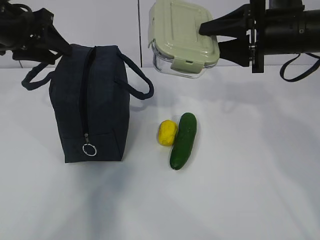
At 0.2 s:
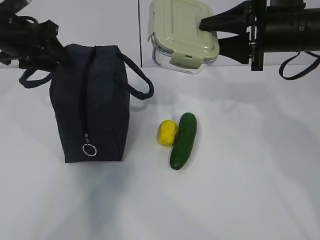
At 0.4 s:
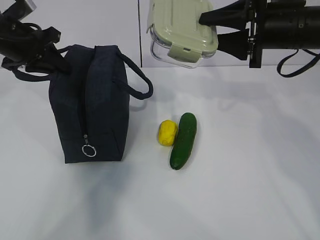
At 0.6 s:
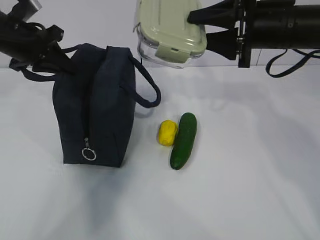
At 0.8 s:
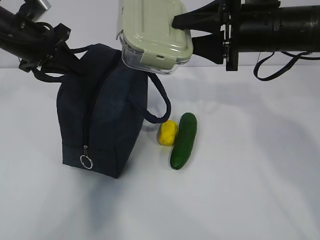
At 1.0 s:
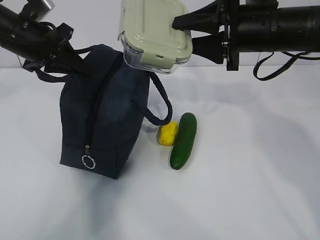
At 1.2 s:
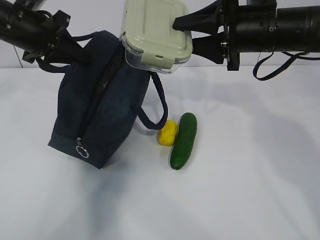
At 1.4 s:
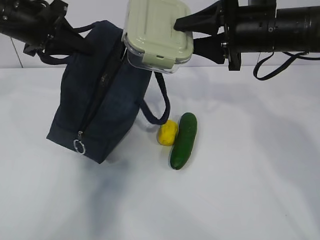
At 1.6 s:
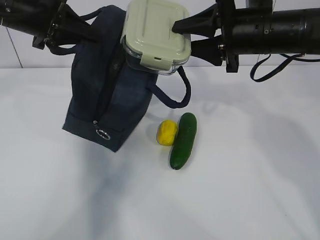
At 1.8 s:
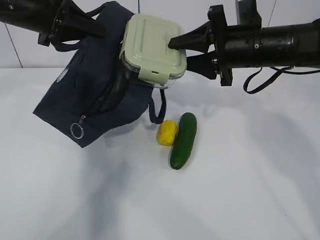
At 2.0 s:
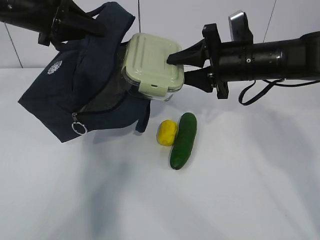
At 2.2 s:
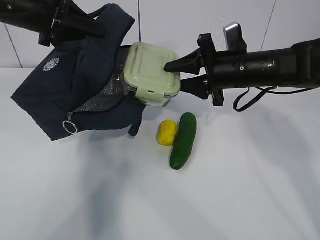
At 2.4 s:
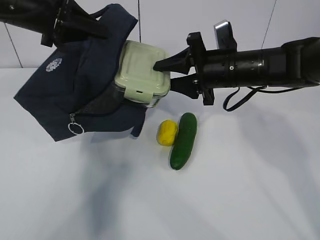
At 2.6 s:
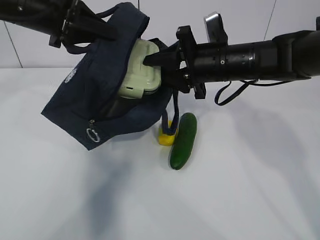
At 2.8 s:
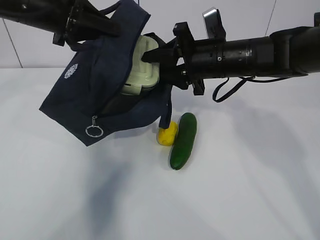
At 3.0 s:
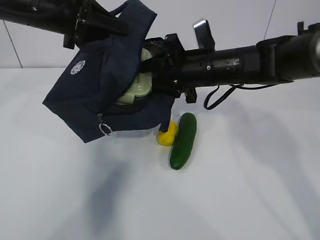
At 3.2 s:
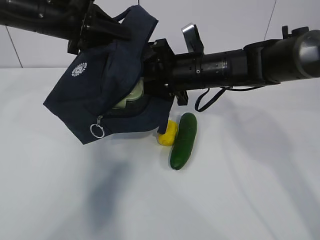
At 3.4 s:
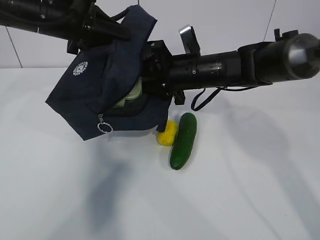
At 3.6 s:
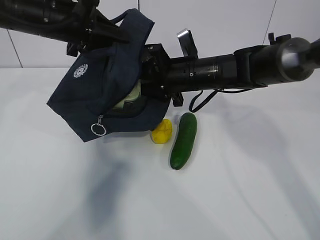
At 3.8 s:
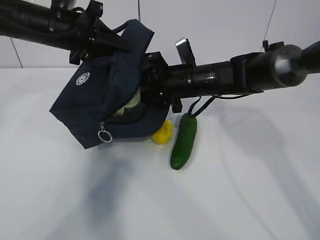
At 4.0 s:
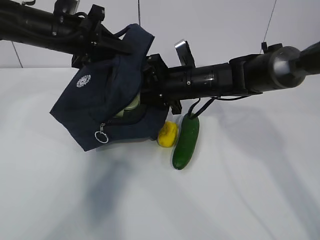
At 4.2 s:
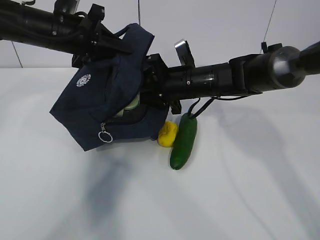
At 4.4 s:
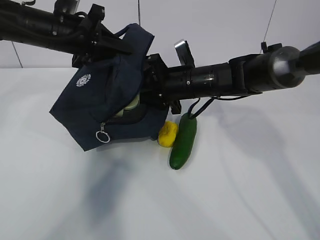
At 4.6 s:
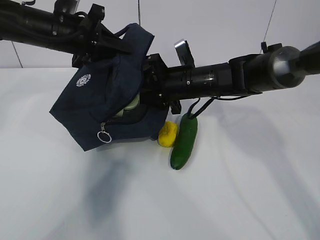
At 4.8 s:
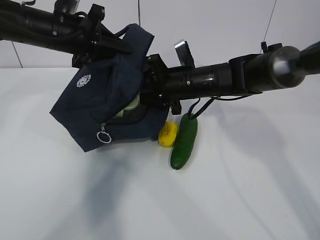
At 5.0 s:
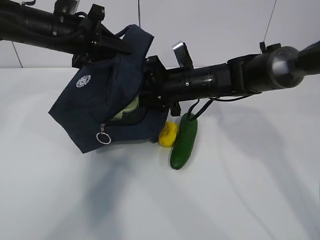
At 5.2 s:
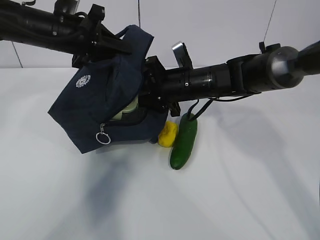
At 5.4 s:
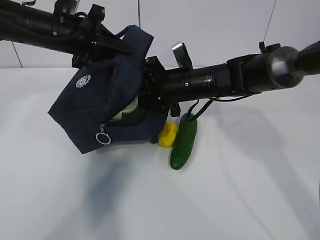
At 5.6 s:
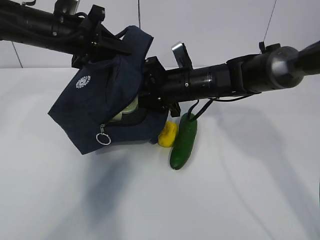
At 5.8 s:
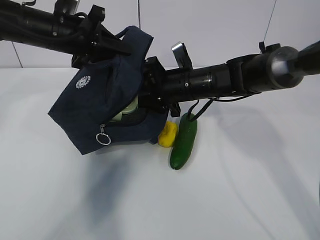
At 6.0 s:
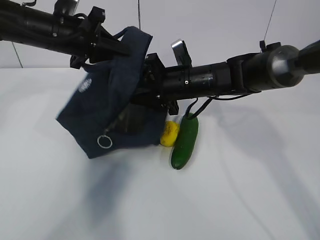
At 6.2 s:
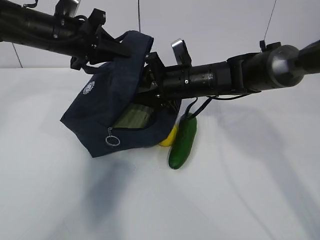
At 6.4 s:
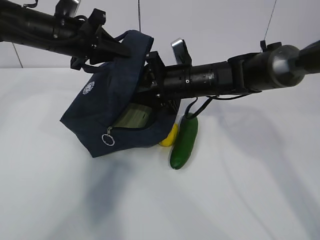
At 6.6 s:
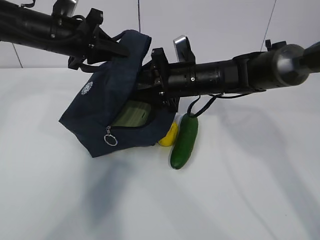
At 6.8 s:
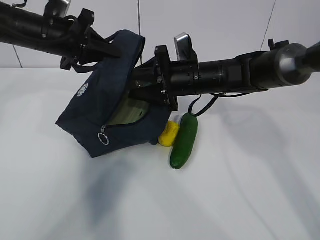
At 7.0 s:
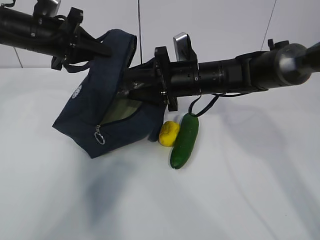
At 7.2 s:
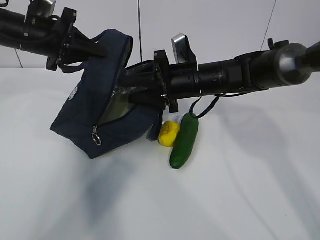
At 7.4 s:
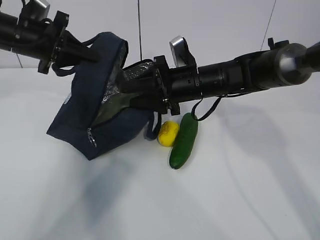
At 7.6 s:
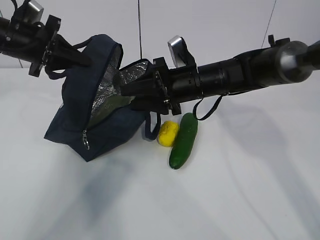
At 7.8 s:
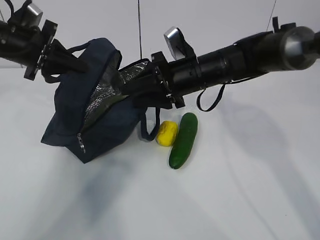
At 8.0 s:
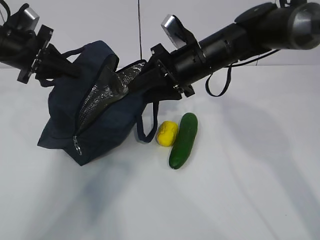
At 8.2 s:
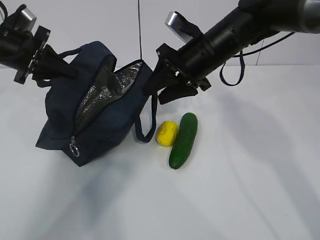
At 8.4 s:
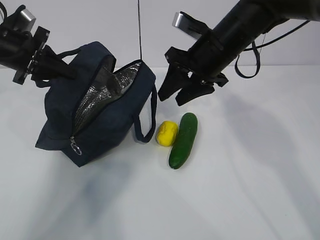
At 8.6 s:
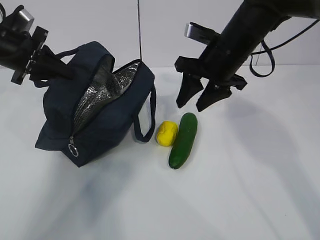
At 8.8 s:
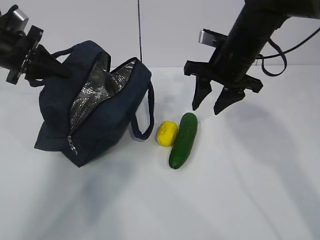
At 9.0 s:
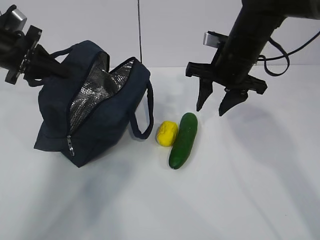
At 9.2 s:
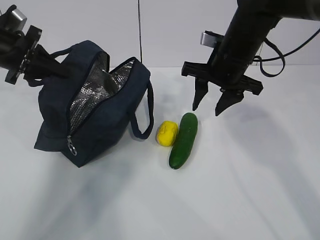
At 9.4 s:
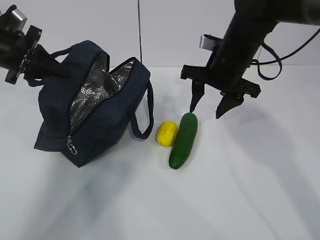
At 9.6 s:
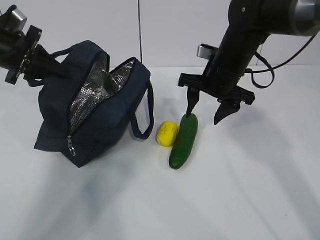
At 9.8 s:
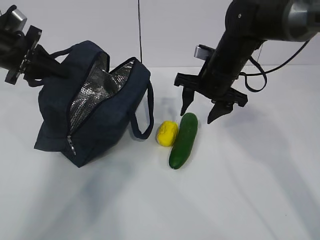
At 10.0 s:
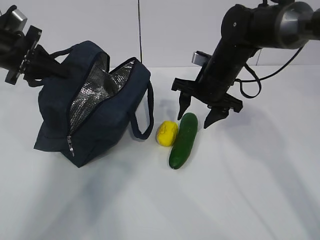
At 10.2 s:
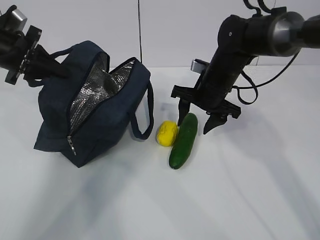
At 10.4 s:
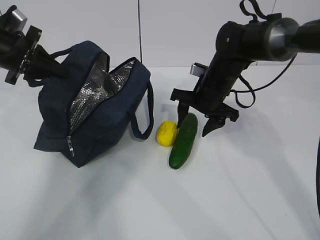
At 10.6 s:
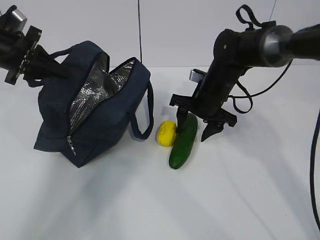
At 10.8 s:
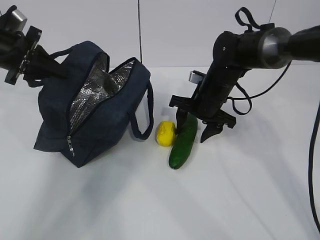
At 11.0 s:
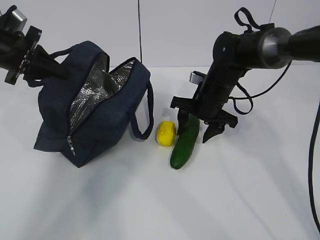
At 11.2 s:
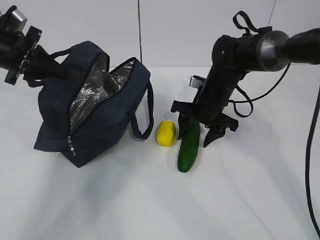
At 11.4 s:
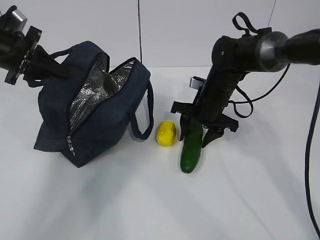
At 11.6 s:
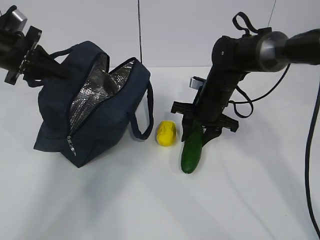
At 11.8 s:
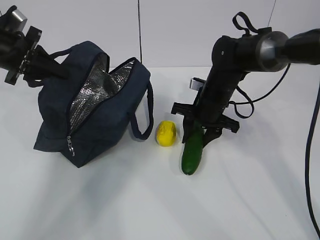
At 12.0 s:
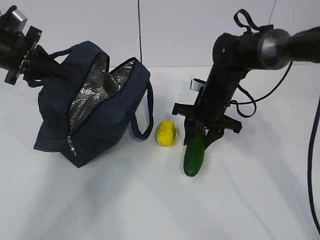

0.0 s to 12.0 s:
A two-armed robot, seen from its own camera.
Step, 1.2 to 5.6 s: Grab the cucumber with your right hand.
Step, 5.8 to 7.6 s: Place it into the bag with your right hand.
0.0 to 1.6 s: The left gripper closes up.
1.6 to 3.0 s: The right gripper moves downward and to the left, some 10 cm.
3.0 to 4.4 s: The right gripper shifts by about 5 cm. Meanwhile the left gripper changes place by some 5 cm.
4.4 to 6.0 s: Both grippers stay about where they are.
6.0 to 7.6 s: The left gripper heads to the left, covering some 10 cm.
7.6 to 9.0 s: The right gripper is displaced to the right and upward by about 10 cm.
9.0 to 10.4 s: The right gripper travels downward by about 10 cm.
10.4 to 12.0 s: The grippers make only small movements.

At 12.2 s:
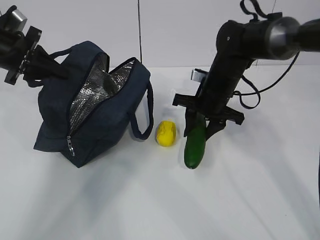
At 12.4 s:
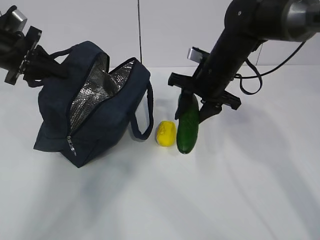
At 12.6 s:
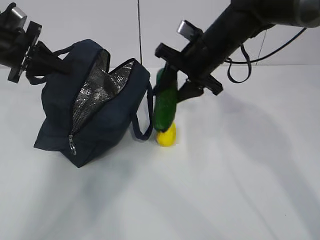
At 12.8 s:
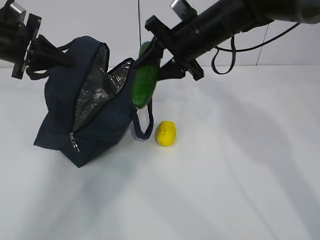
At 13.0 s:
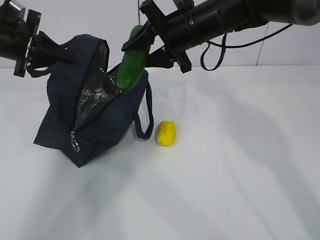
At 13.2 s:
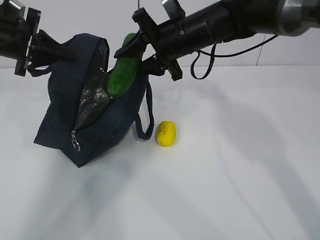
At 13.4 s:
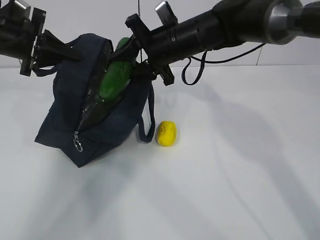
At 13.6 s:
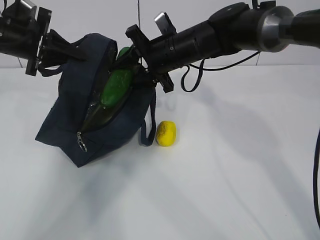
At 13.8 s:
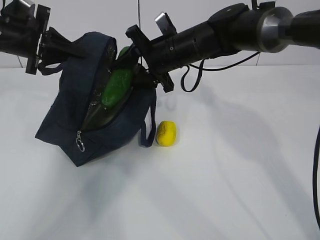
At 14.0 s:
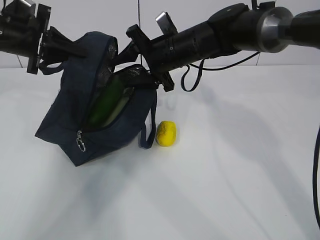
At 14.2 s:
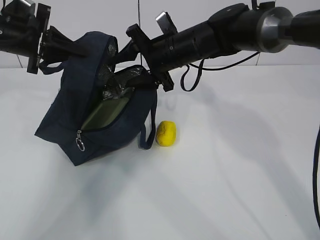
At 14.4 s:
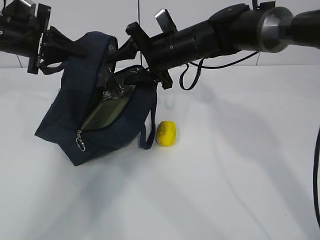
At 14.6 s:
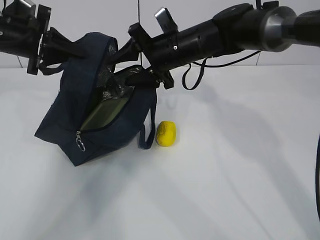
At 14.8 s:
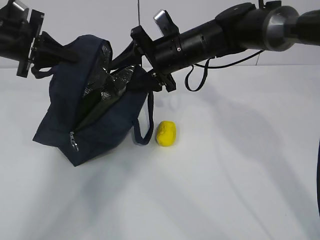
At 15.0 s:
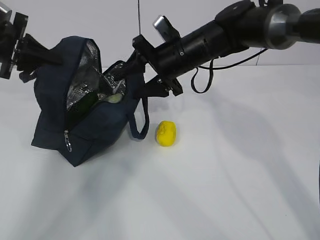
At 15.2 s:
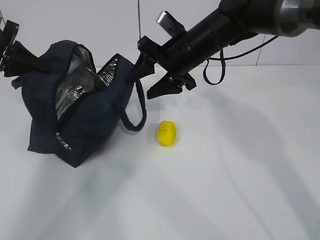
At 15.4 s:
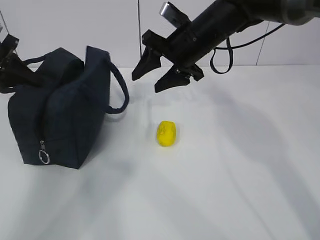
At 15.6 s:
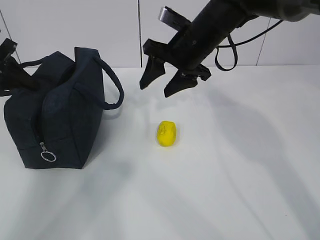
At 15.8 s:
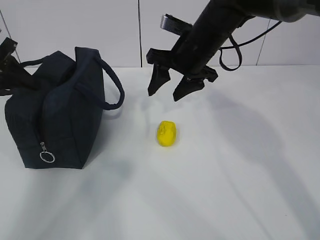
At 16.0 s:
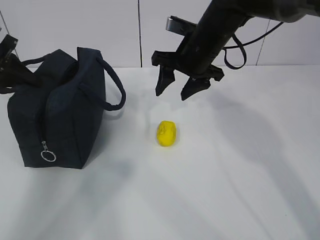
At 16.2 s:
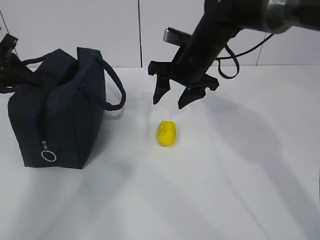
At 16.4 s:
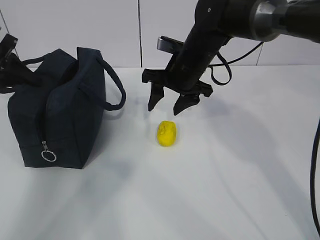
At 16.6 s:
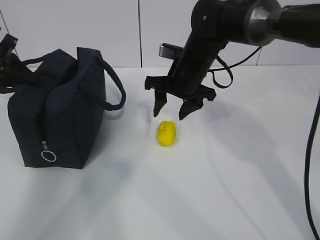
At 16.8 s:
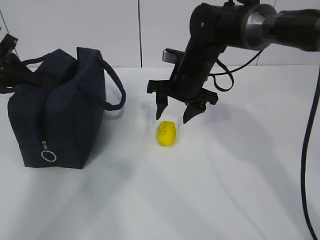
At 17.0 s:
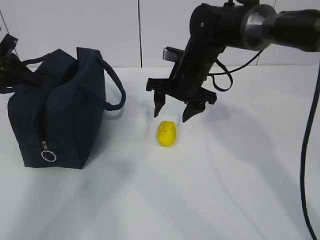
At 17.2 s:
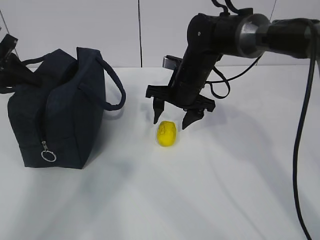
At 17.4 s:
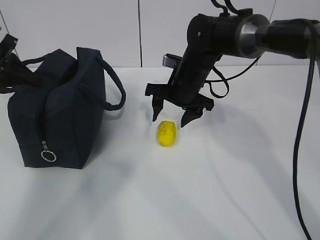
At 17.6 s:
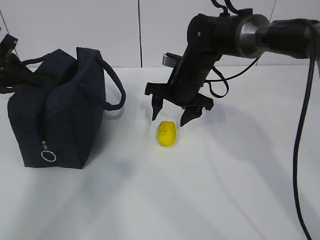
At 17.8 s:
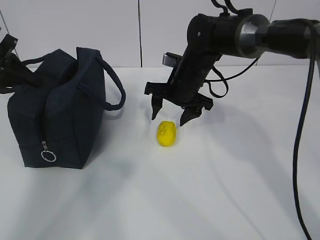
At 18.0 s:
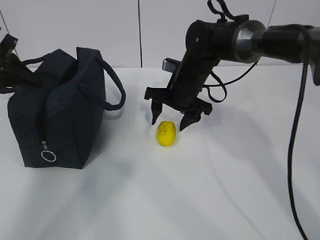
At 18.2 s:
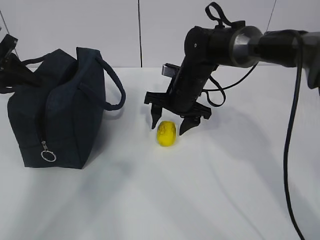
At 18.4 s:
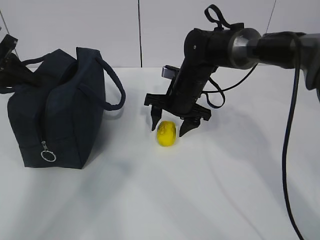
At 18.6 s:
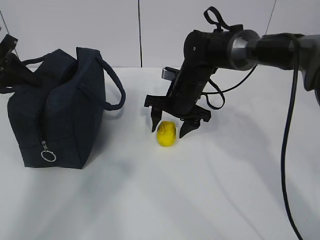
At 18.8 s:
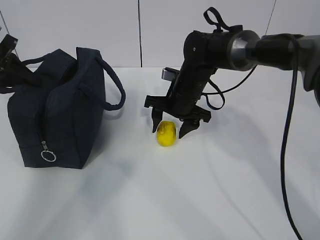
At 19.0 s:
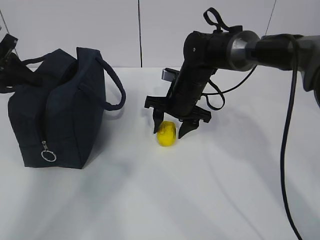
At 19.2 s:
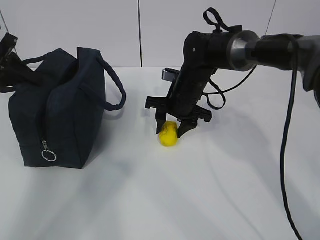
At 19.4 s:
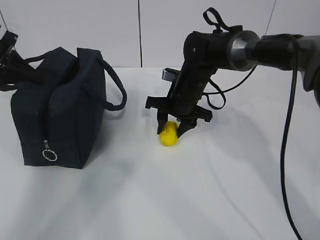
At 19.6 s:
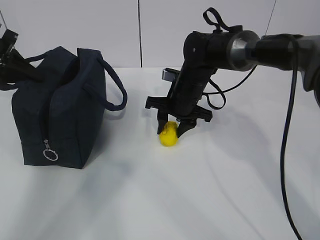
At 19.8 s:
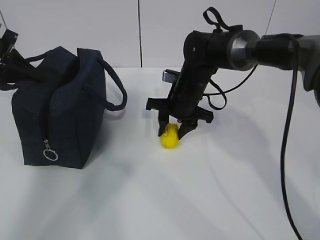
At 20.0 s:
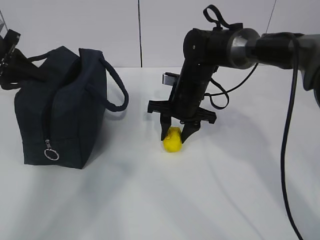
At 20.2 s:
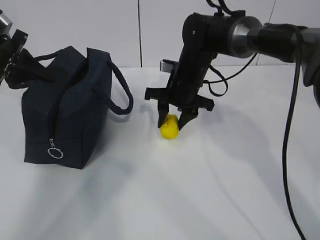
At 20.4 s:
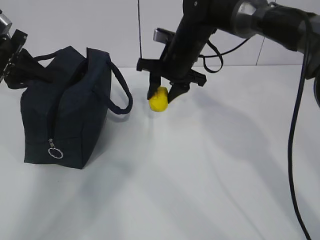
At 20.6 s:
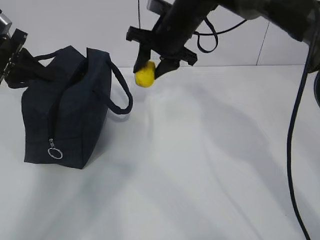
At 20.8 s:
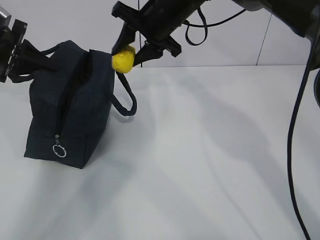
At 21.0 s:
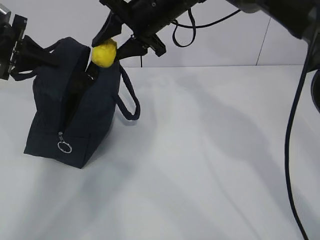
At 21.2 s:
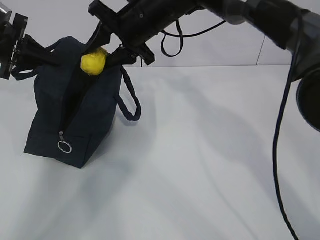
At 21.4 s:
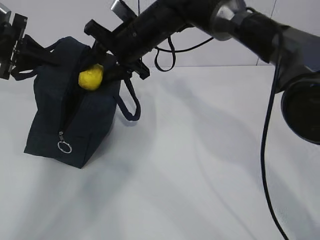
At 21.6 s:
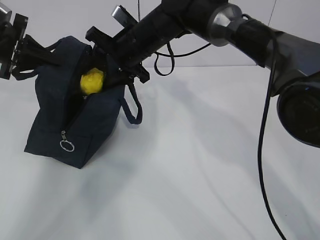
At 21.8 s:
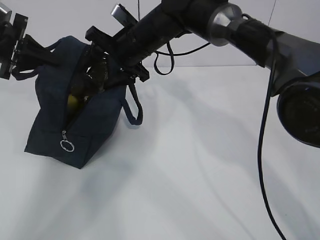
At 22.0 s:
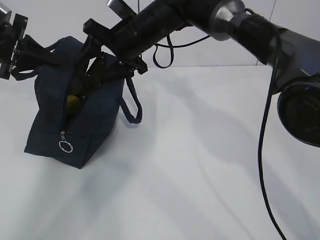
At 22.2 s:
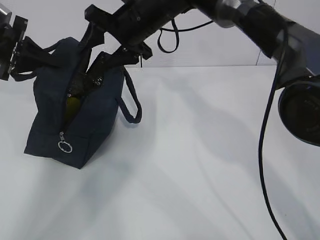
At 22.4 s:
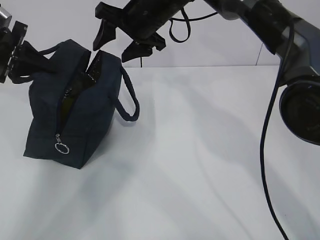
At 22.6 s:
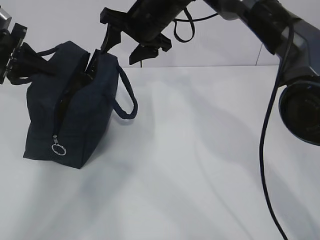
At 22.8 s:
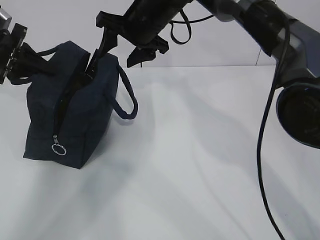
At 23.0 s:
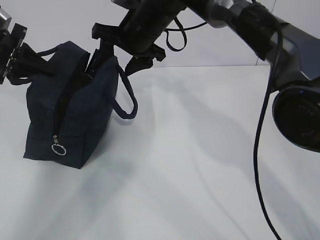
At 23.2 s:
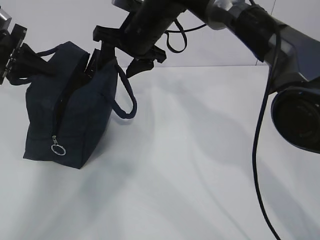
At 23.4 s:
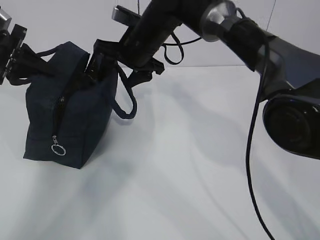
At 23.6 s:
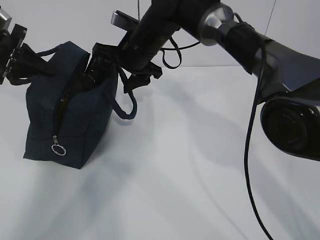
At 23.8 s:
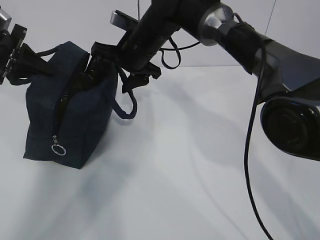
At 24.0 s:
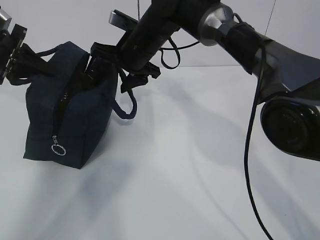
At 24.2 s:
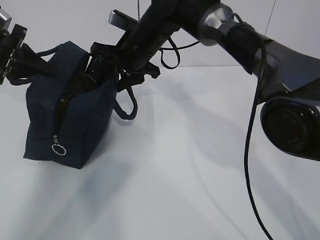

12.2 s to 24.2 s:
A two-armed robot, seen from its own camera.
Step, 12.4 to 14.2 s: Secure the lunch bag with your left hand.
Step, 14.4 to 16.4 s: Grab the lunch bag with your right hand.
Step, 16.6 to 19.0 s: Move the lunch bag to the right.
12.2 to 13.8 s: The right gripper moves to the left and upward, approximately 10 cm.
13.8 to 15.2 s: The left gripper heads to the left, covering some 5 cm.
16.6 to 18.2 s: The right gripper ends up about 5 cm from where it was.
18.2 to 19.8 s: Both grippers stay about where they are.
19.8 to 21.2 s: The right gripper moves upward and to the left, approximately 15 cm.
21.2 to 22.6 s: The grippers stay close to where they were, moving slightly.
22.6 to 24.2 s: The right gripper travels downward by about 5 cm.
